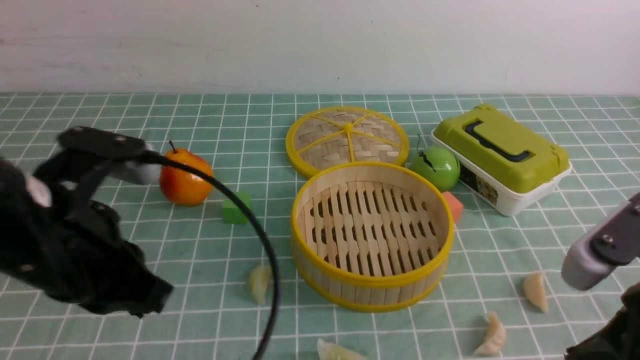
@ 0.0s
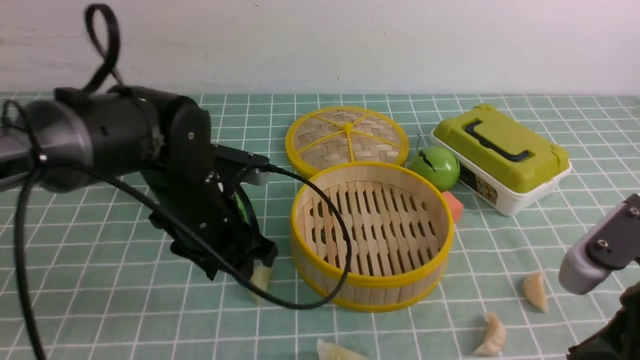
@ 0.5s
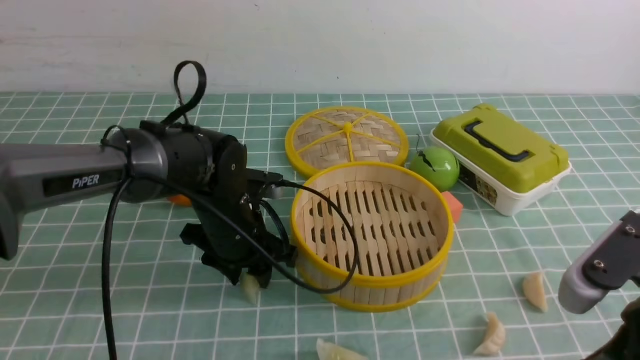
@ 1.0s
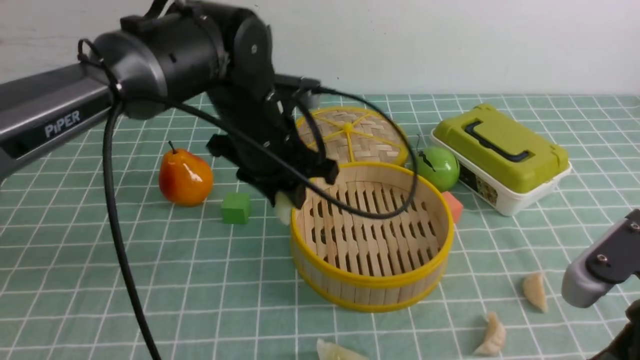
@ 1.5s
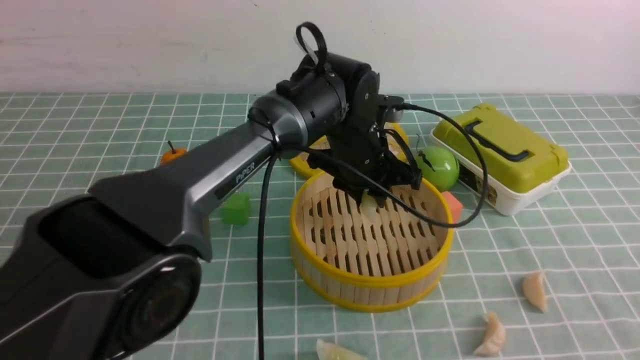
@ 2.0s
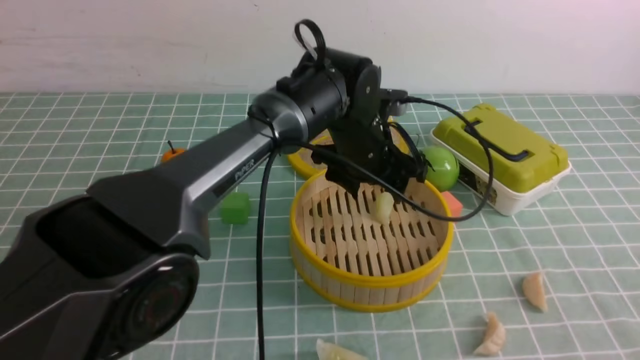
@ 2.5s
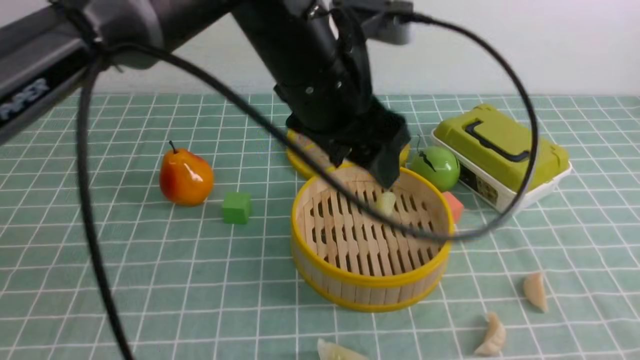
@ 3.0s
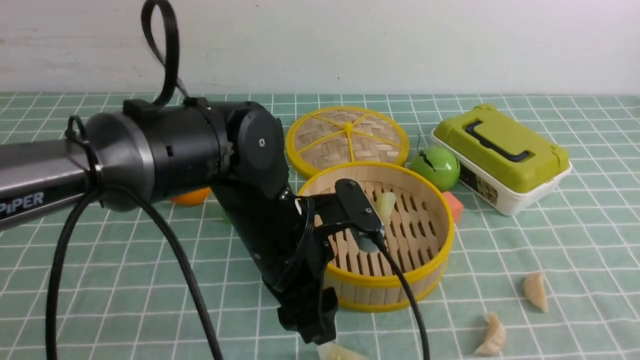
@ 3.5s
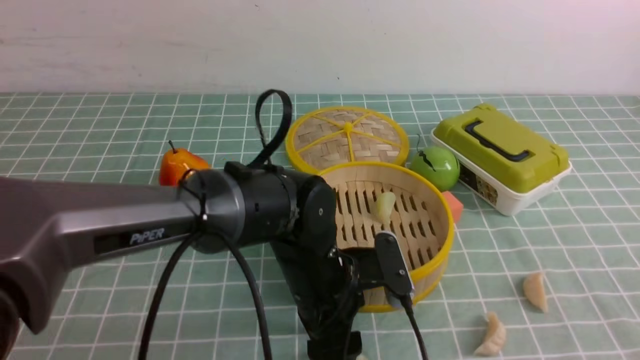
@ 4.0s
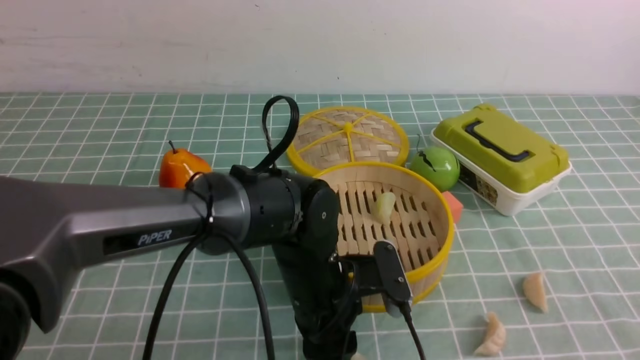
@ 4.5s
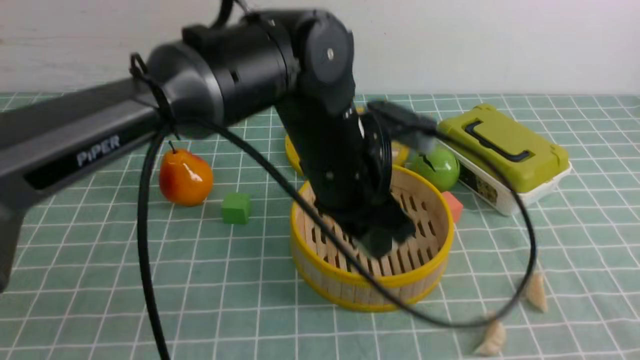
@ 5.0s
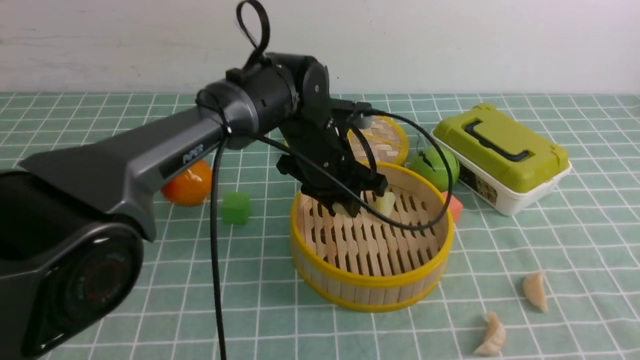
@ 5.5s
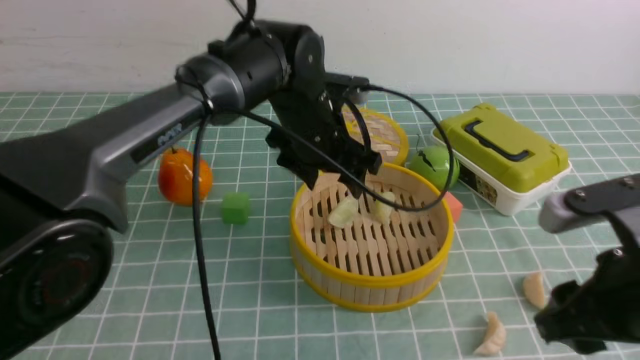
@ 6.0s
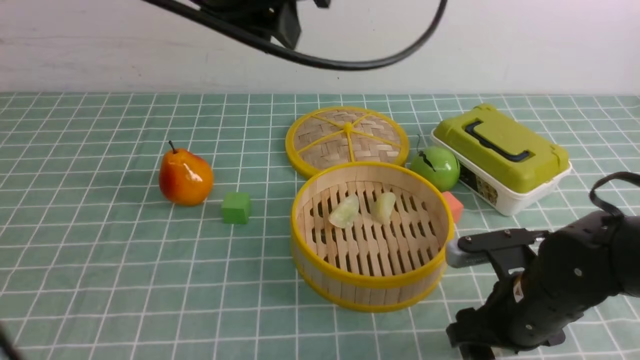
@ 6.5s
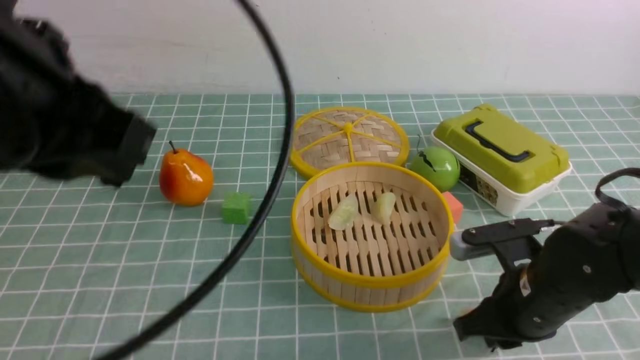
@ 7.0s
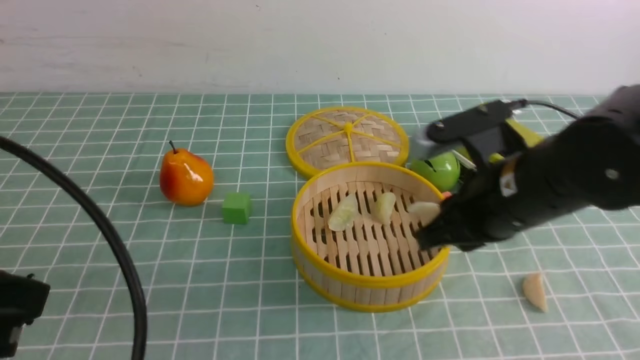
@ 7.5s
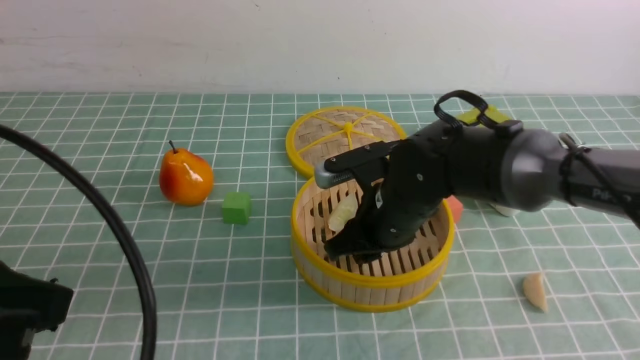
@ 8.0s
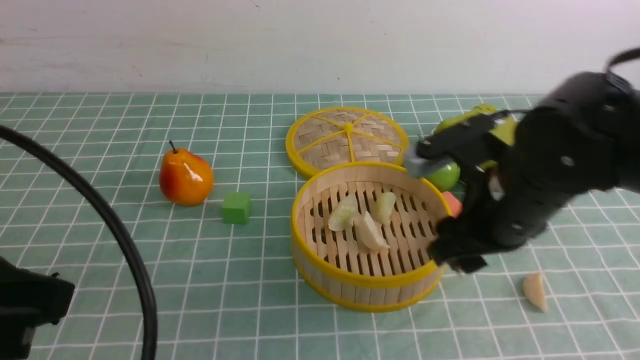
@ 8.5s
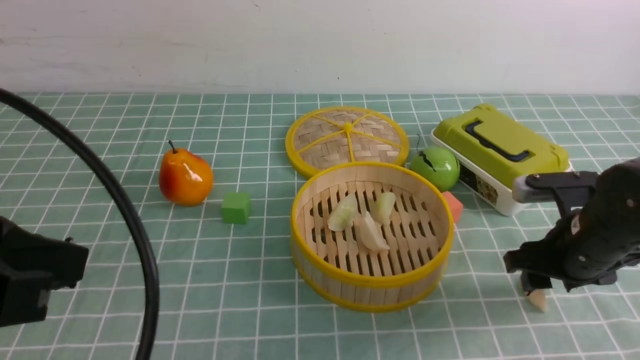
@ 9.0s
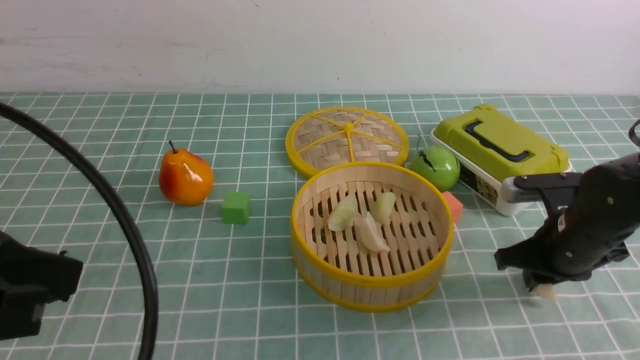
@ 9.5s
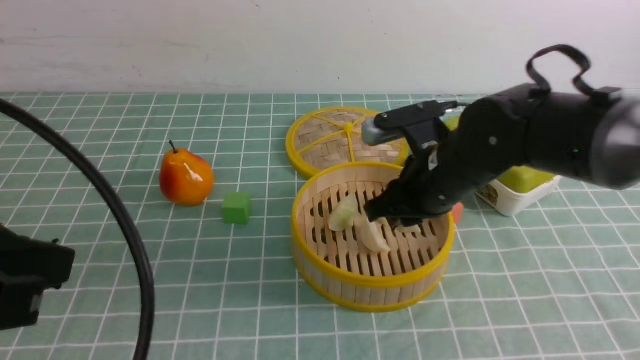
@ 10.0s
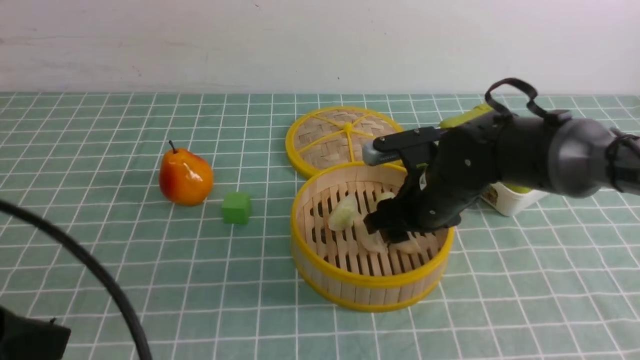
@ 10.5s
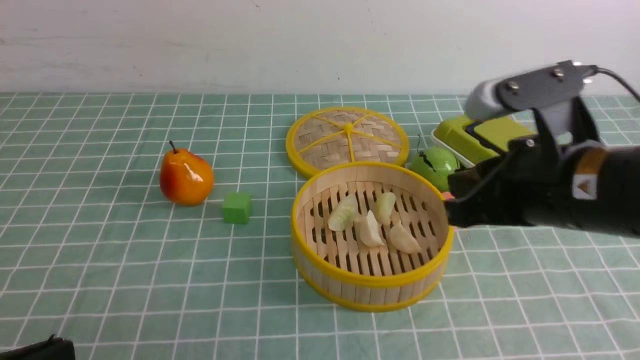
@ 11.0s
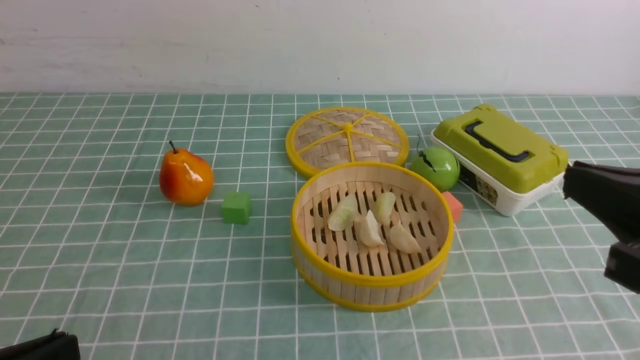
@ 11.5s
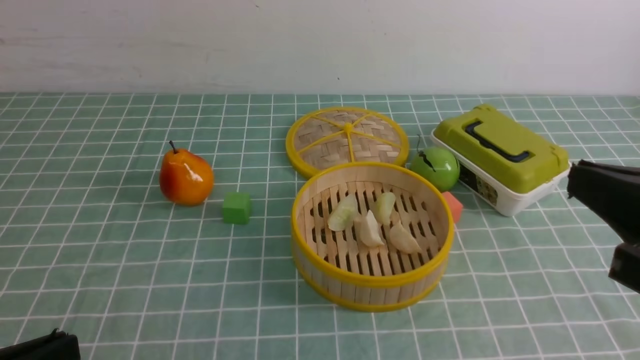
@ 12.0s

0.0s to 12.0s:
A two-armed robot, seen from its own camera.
Task of the whole recording: put the dumplings into the steamer on the table with the blue tablecloth.
Step, 1.5s to 2.5s: use the left arm to put the dumpling into the steamer.
Step, 3.0s to 4.5s: use the left arm to grab a dumpling.
Step, 5.0s to 5.5s: use the left arm to put the dumpling into the steamer.
Step, 6.0s to 7.0s: use the right arm to grab a dumpling.
Step, 7.5s to 8.0s: use the right arm to put the dumpling into the steamer.
Step, 9.0s to 9.5s: use the right arm to grab a dumpling.
Step, 10.0s to 10.5s: use the right arm to put the dumpling into the steamer.
0.0s to 2.0s: The left gripper travels to the right and forward by approximately 30 cm, and opens its fingers; the right gripper ends up approximately 5 cm from where it was.
2.0s to 4.0s: The left gripper travels backward by about 15 cm, and moves about 10 cm upward and comes back.
4.0s to 6.0s: The left gripper is displaced forward and upward by approximately 15 cm; the right gripper heads forward and downward, covering some 10 cm, and opens.
6.0s to 8.0s: The right gripper goes about 20 cm forward and to the left, while the left gripper goes some 35 cm backward and to the left, and closes its fingers.
8.0s to 10.0s: The right gripper moves approximately 20 cm to the right and comes back, and opens and closes again.
10.0s to 12.0s: The right gripper shifts roughly 25 cm backward, upward and to the right, and closes its fingers; the left gripper moves downward, some 10 cm.

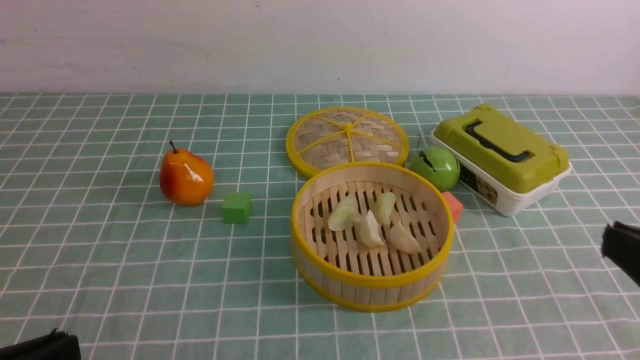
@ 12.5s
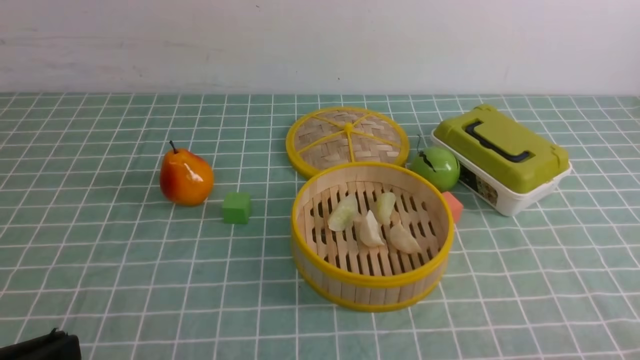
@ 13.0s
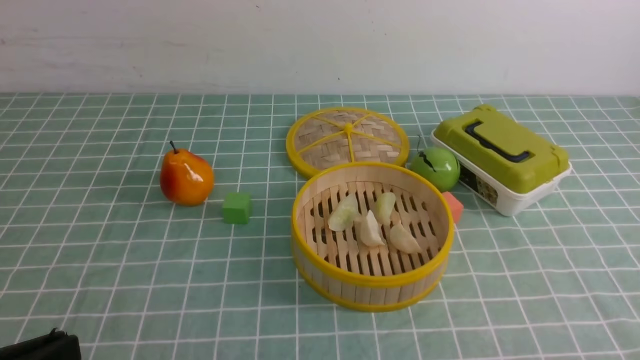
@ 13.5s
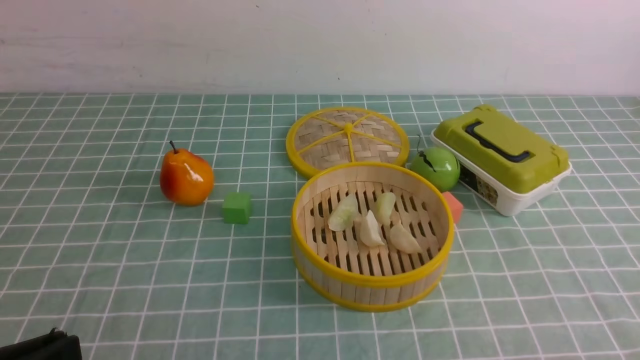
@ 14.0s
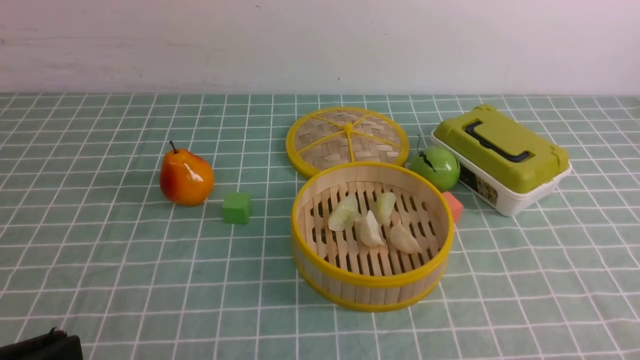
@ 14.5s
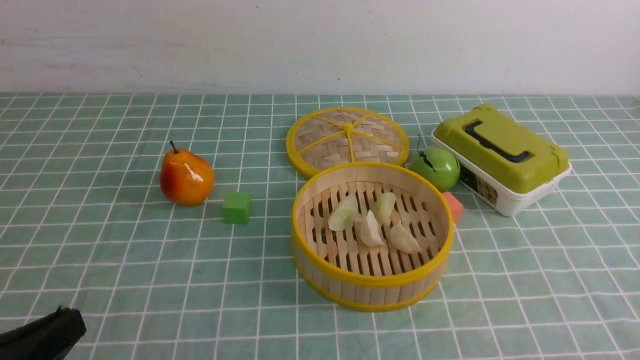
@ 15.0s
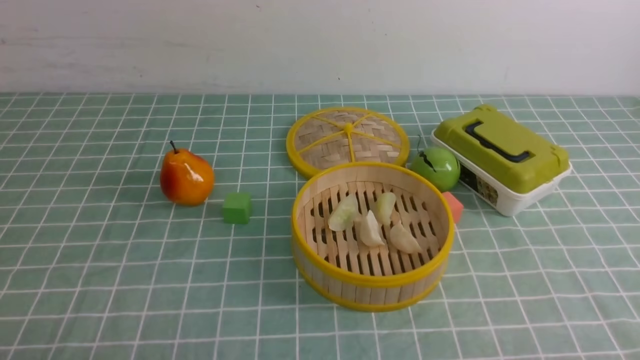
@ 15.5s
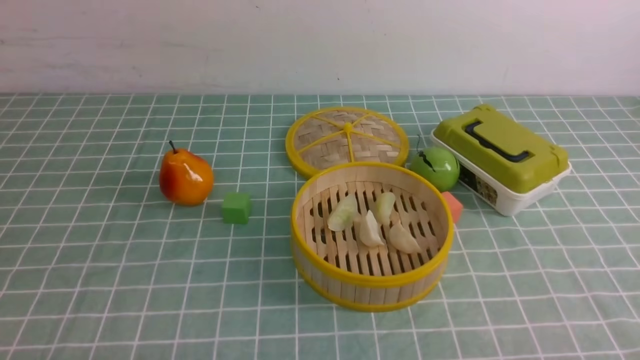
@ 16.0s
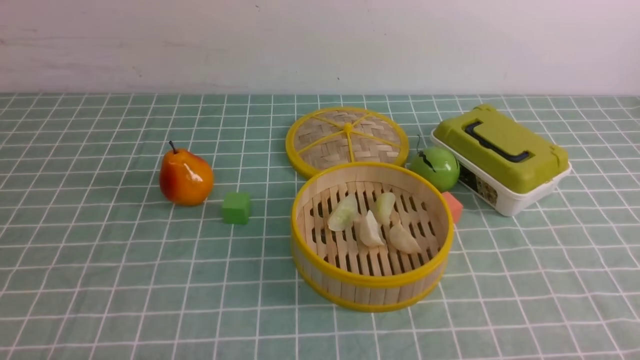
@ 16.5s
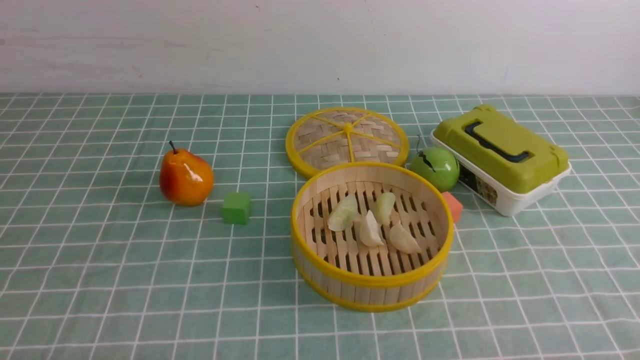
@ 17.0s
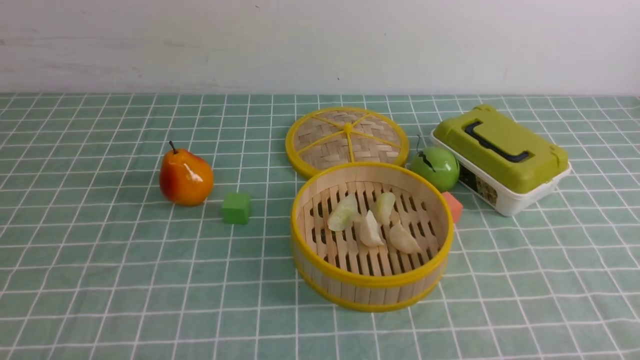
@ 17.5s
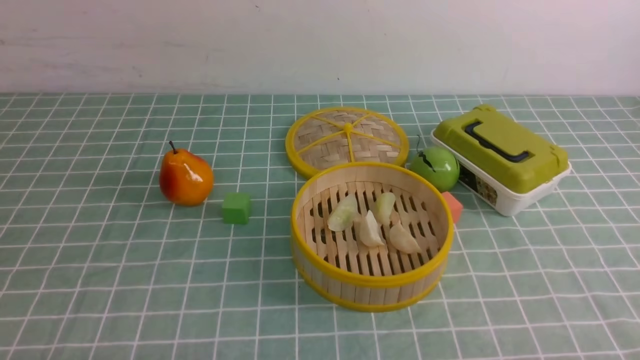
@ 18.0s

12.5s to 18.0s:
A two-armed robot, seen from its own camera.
Task of the whole recording: put the dumplings into the steamer on the table with the blue tablecloth.
12.5s to 14.5s: The right gripper heads downward, covering some 15 cm.
14.5s to 16.0s: The left gripper moves downward, roughly 10 cm.
16.0s to 18.0s: The two grippers keep their place.
